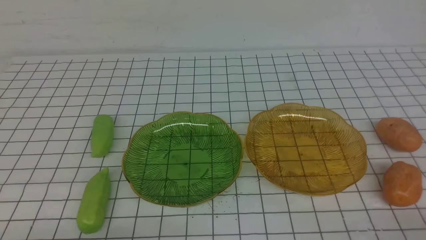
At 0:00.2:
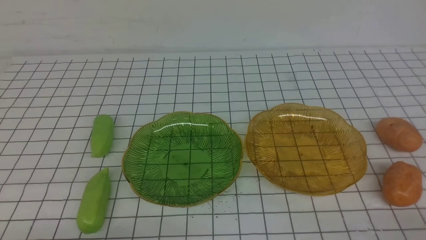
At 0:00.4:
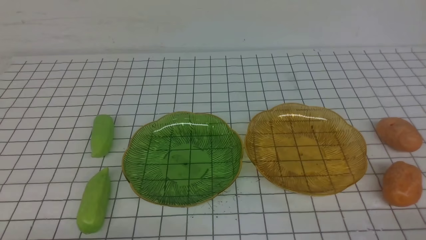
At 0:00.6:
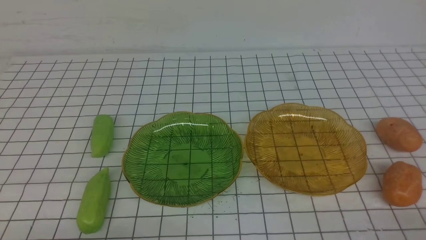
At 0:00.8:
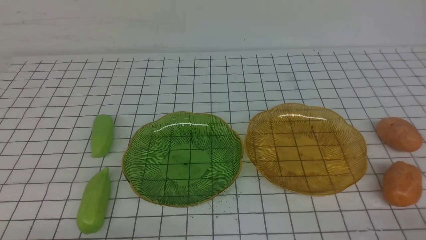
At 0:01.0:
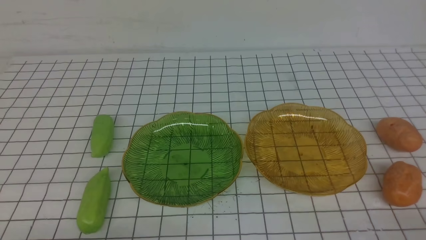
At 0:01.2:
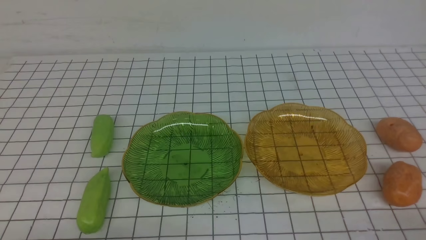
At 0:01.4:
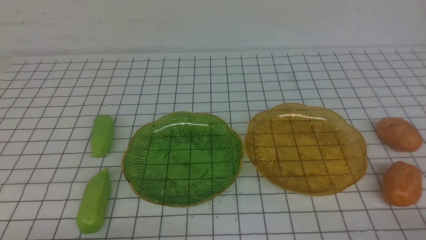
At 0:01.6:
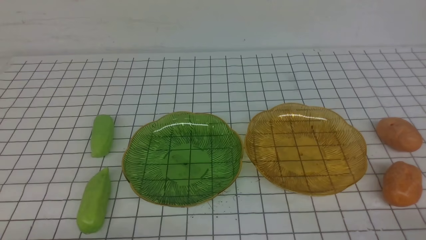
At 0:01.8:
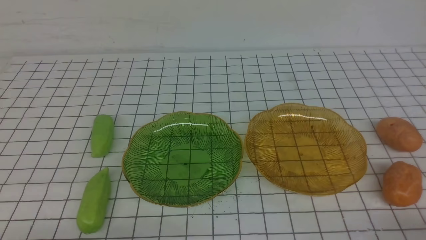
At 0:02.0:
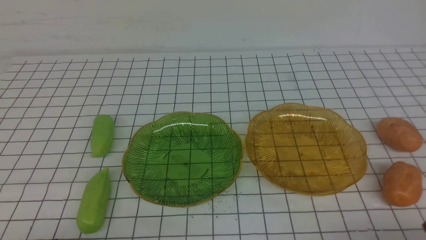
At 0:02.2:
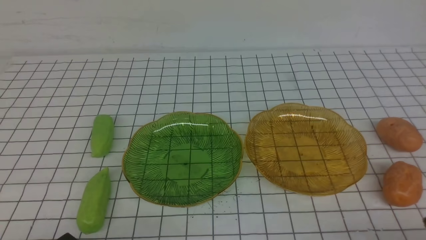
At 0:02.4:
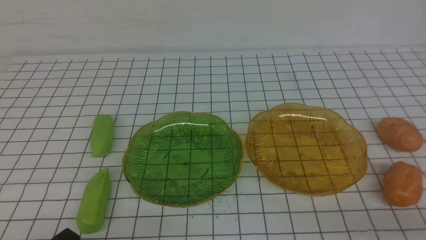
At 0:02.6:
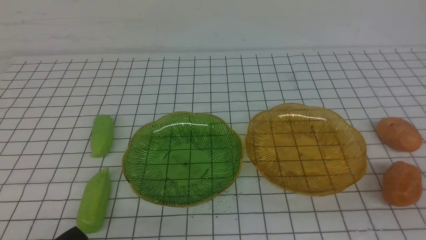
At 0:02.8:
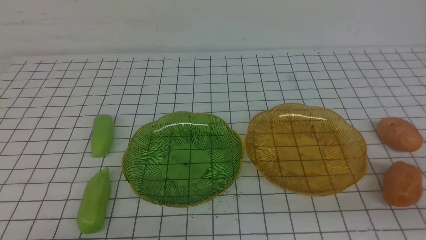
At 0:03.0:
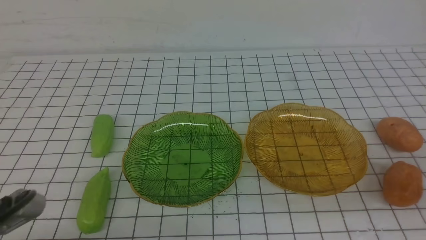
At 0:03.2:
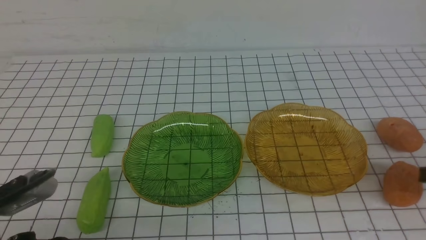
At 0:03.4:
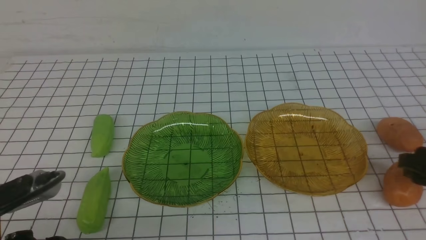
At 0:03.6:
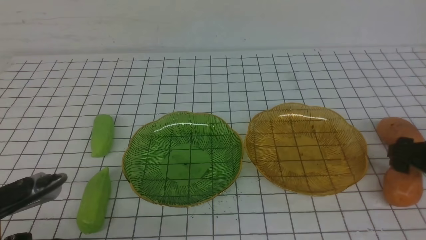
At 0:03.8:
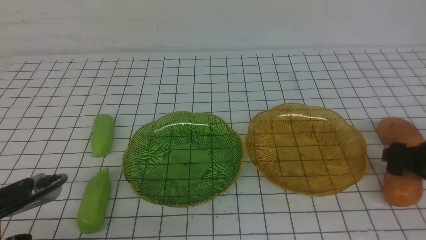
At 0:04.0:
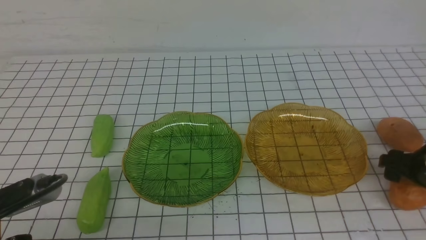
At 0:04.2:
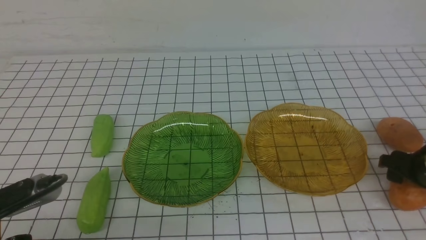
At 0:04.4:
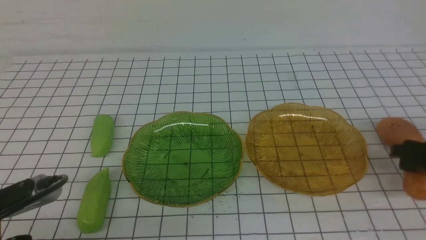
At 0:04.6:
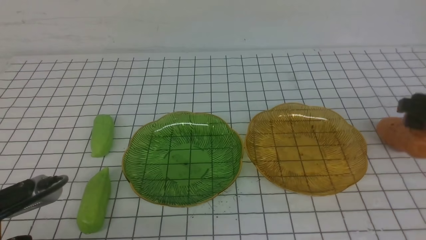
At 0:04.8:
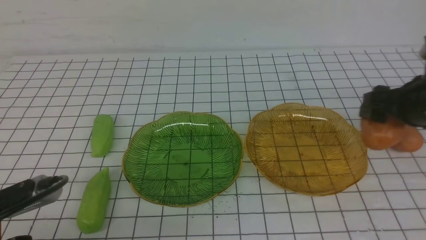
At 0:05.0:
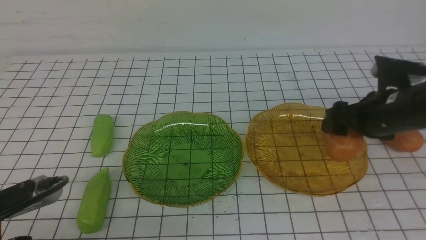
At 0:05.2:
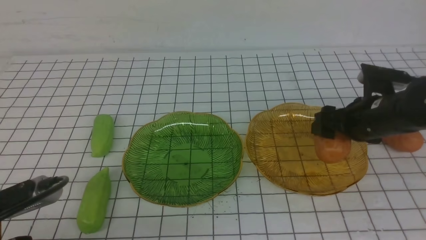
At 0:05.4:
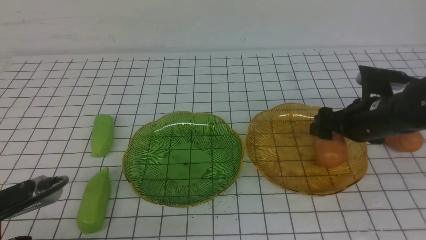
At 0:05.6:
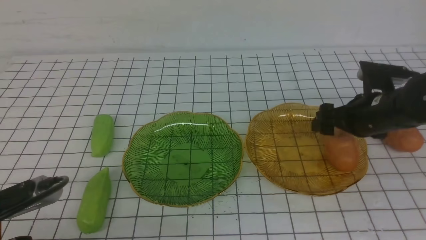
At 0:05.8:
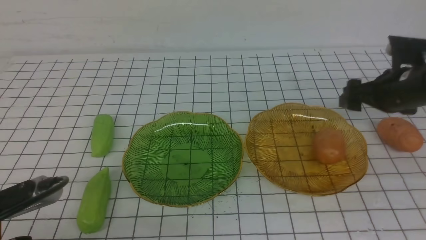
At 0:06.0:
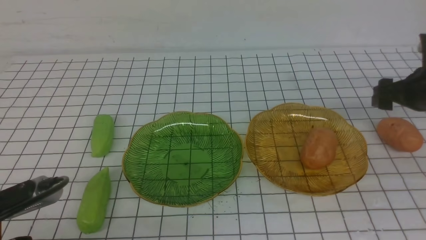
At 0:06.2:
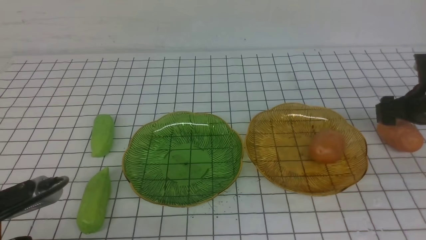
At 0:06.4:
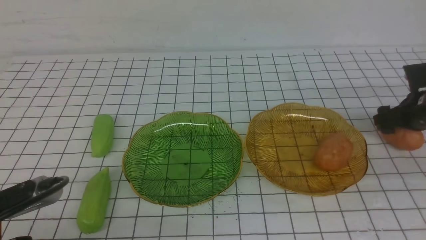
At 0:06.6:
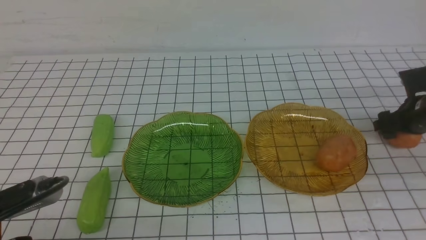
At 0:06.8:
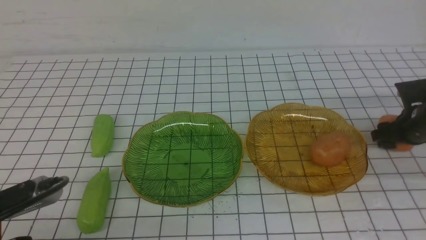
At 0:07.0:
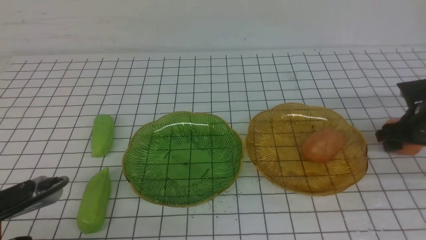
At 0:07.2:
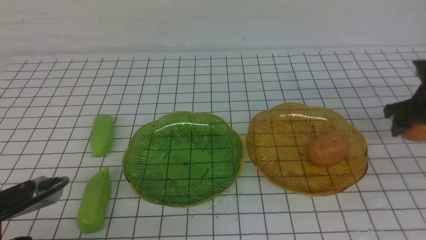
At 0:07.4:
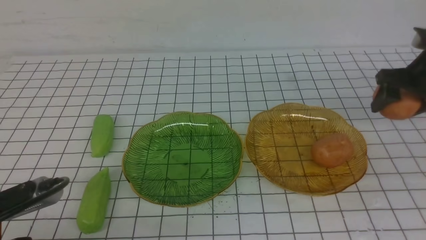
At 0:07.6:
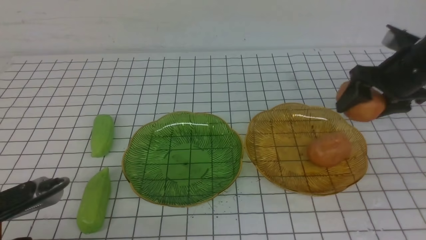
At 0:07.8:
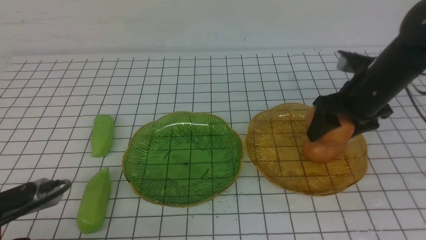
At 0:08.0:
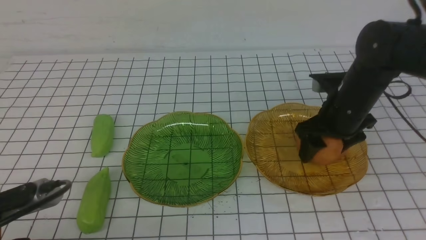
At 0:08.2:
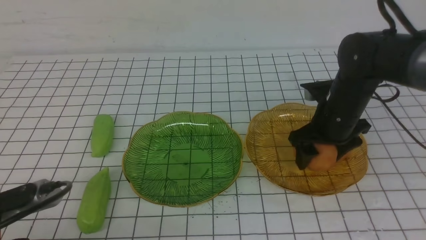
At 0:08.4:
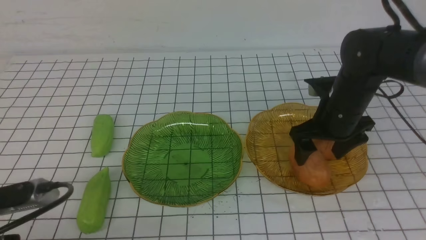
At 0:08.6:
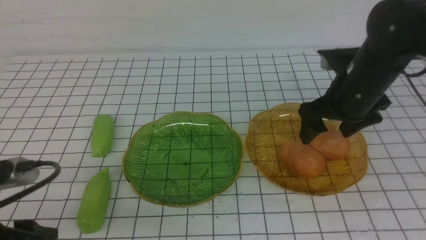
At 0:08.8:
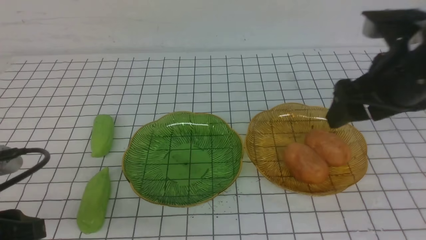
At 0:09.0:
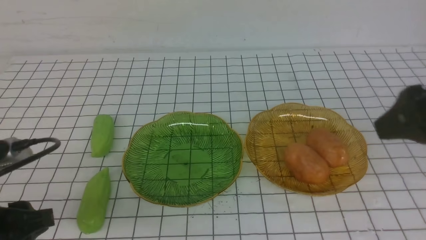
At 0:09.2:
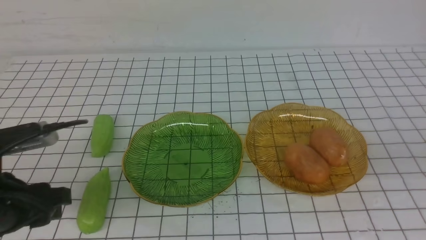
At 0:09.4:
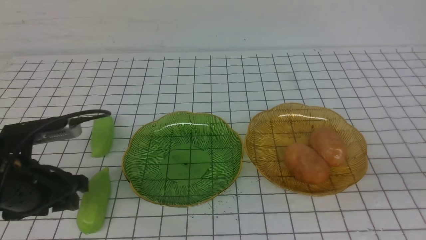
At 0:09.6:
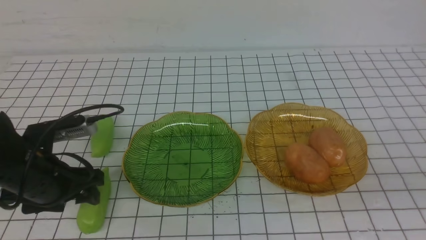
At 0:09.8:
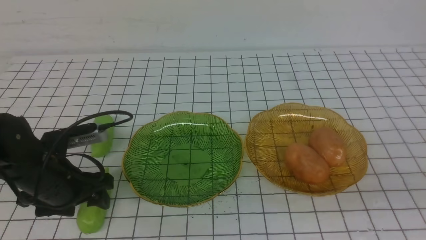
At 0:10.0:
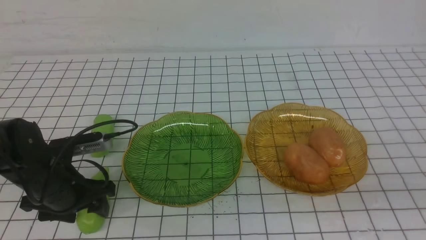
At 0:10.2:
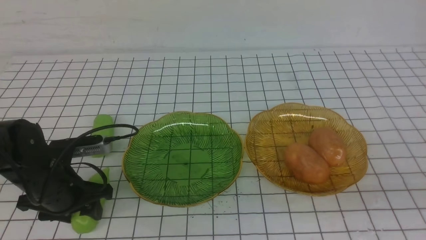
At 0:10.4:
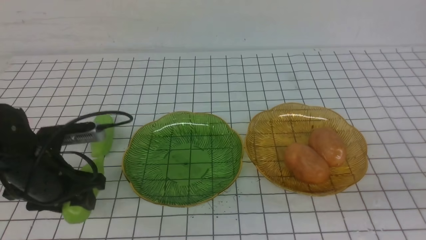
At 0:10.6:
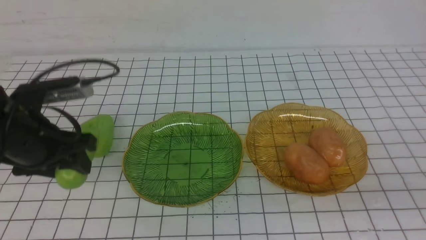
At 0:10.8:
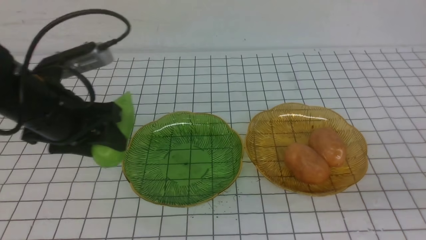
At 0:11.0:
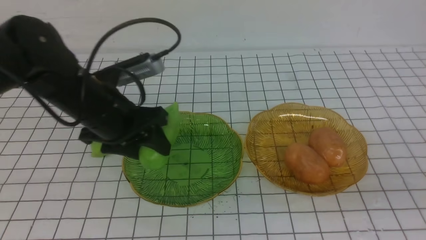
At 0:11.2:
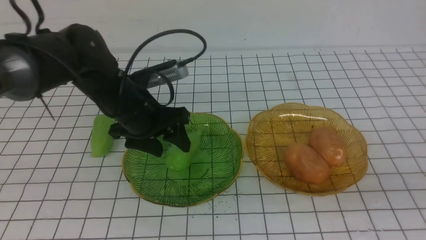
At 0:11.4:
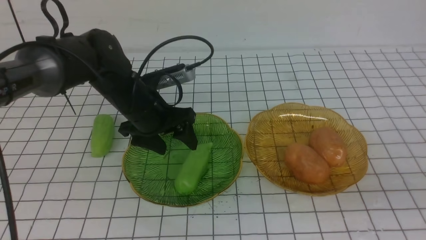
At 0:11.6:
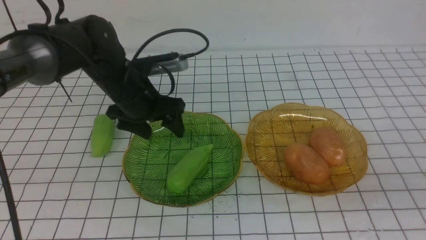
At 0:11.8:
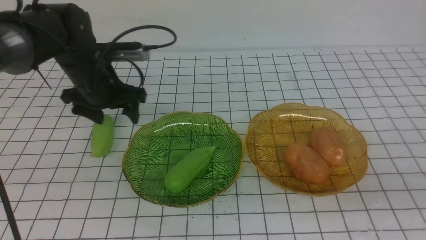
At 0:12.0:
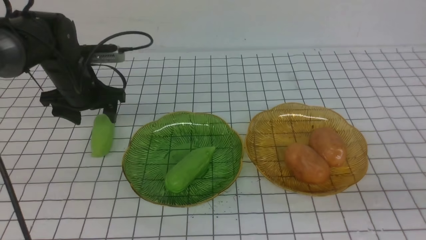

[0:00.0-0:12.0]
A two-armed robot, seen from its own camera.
Step, 0:00.0 to 0:05.4: Grab a potato with your right arm and put it on the right plate.
Step, 0:05.8 to 0:08.4: Grab a potato with your right arm and put it on the right plate.
0:00.0 to 0:01.6: Both grippers stay about where they are.
0:01.6 to 0:03.0: The left gripper moves upward, roughly 5 cm. Meanwhile the right gripper goes roughly 15 cm upward and forward.
0:03.0 to 0:04.4: The right gripper heads forward and downward, covering approximately 15 cm, and opens.
0:04.4 to 0:06.0: The right gripper travels forward by some 10 cm, and travels to the left and back again, roughly 10 cm each way.
0:06.0 to 0:07.6: The right gripper shifts approximately 5 cm to the left.
0:07.6 to 0:09.0: The left gripper shifts by roughly 5 cm. The right gripper is displaced backward and upward by roughly 25 cm.
0:09.0 to 0:10.4: The right gripper travels backward by approximately 10 cm, and closes up. The left gripper shifts about 10 cm forward.
0:10.4 to 0:12.0: The left gripper shifts about 15 cm forward, and opens.

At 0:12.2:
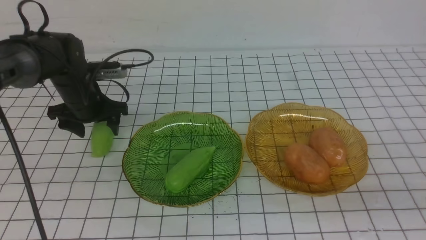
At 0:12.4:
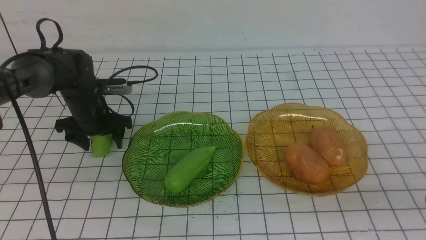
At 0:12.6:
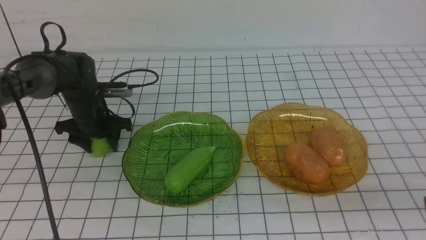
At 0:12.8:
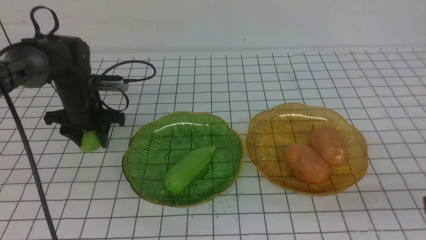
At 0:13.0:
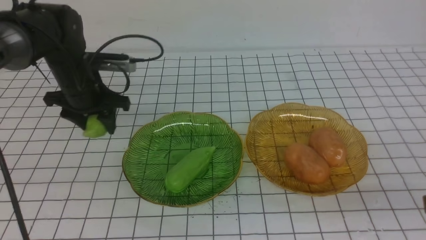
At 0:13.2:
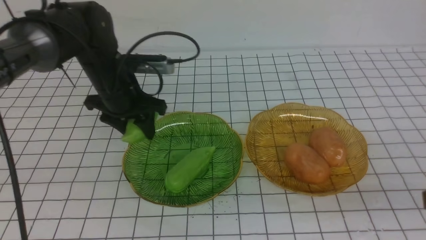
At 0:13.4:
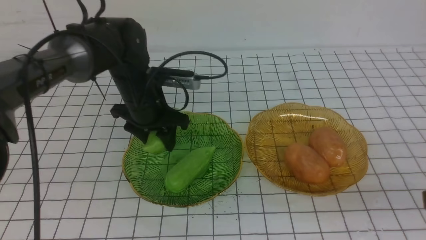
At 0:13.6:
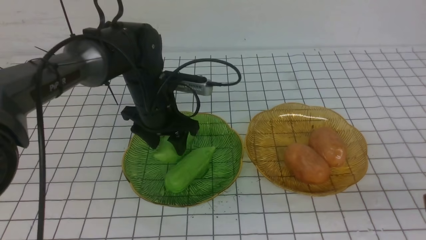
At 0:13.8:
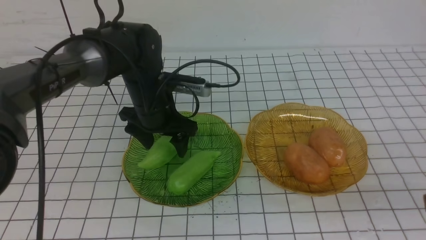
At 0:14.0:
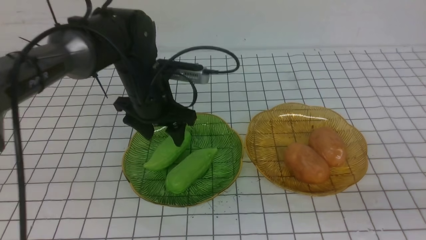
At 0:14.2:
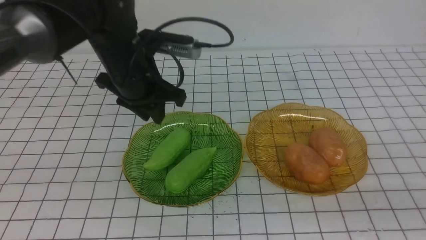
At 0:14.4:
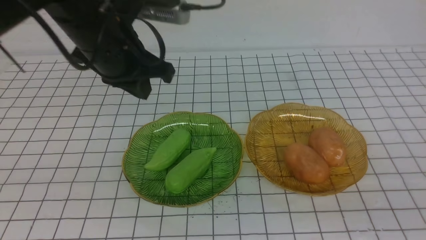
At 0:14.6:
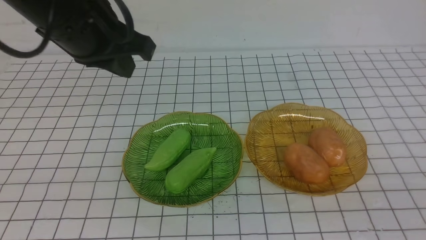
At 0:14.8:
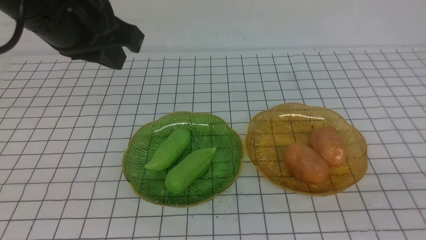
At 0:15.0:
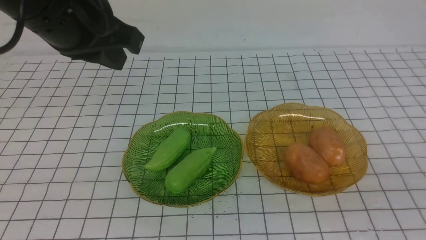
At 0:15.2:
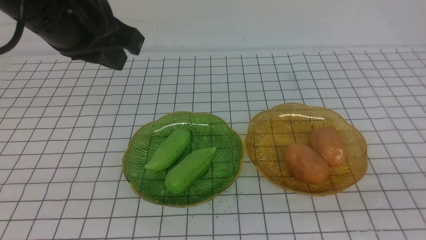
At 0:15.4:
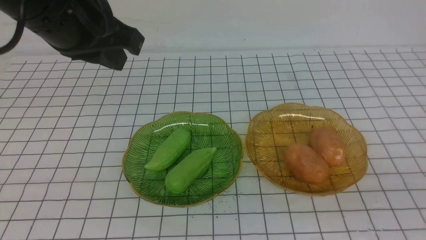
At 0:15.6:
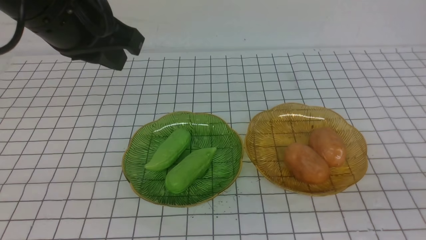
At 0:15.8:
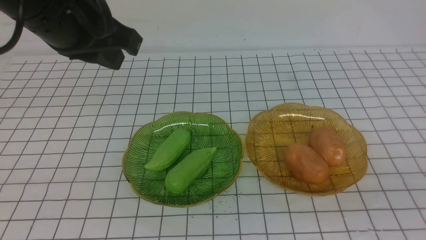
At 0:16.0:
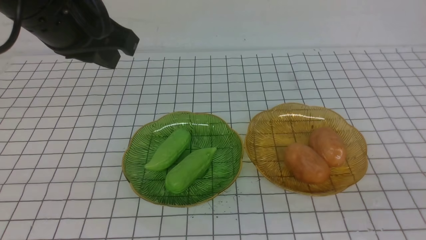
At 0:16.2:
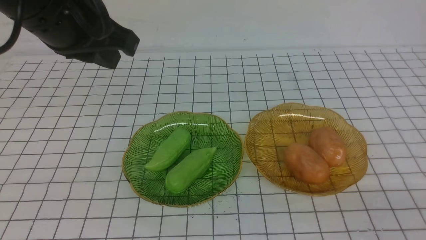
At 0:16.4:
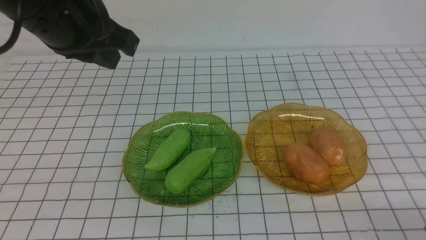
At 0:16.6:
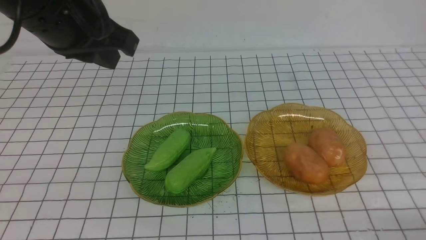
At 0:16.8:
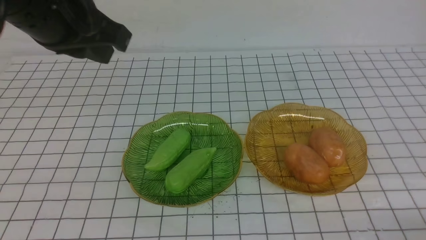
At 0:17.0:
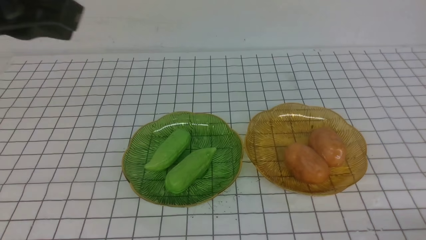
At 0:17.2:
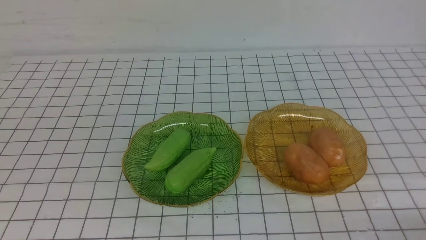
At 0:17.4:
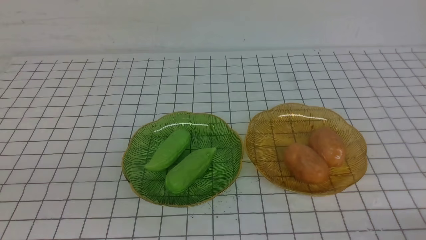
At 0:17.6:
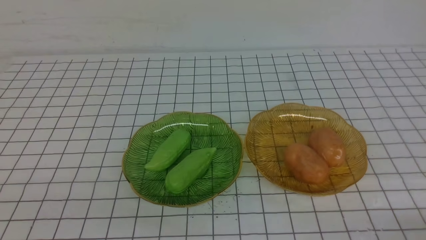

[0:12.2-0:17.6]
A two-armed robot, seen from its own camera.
0:12.2 to 0:13.6: The left gripper travels to the right by some 15 cm.
0:13.6 to 0:15.0: The right gripper ends up some 5 cm from where it was, while the left gripper travels upward and backward by approximately 25 cm, and closes up.
0:16.2 to 0:17.6: The left gripper heads backward, covering some 25 cm.
